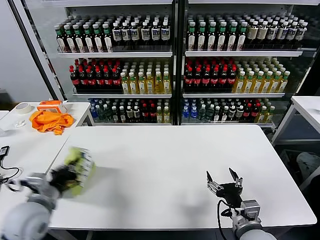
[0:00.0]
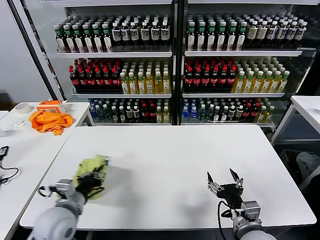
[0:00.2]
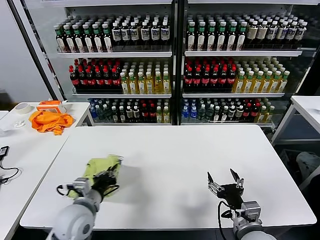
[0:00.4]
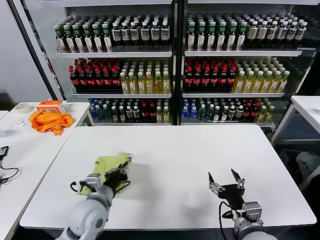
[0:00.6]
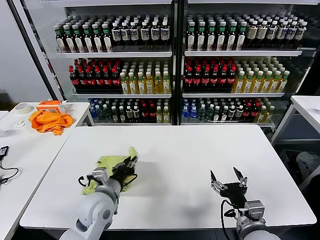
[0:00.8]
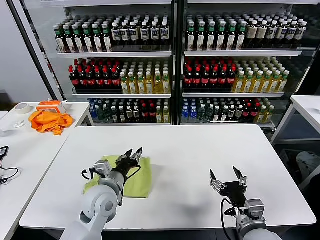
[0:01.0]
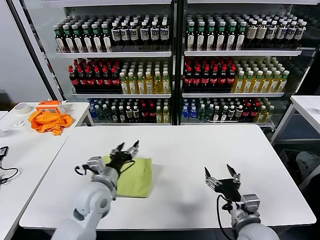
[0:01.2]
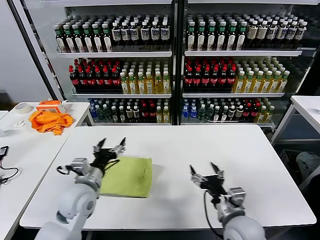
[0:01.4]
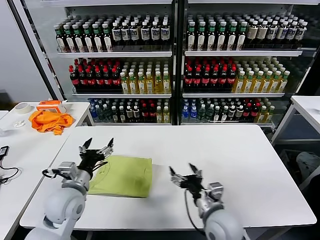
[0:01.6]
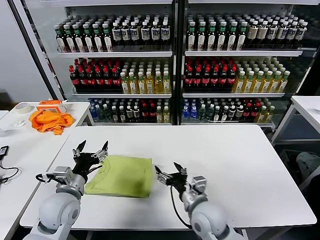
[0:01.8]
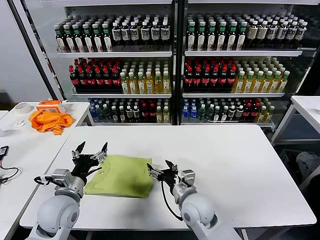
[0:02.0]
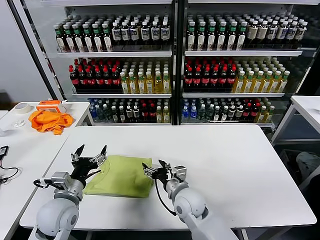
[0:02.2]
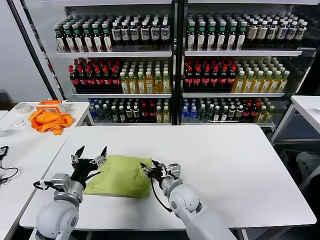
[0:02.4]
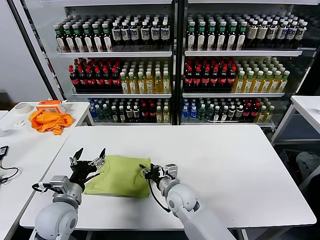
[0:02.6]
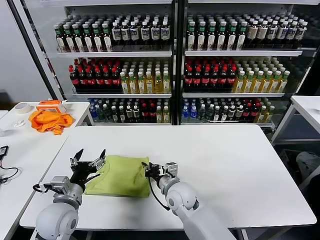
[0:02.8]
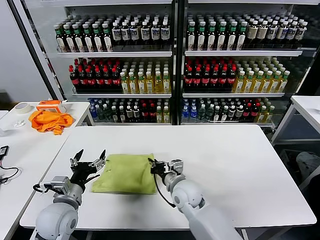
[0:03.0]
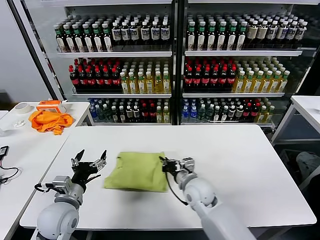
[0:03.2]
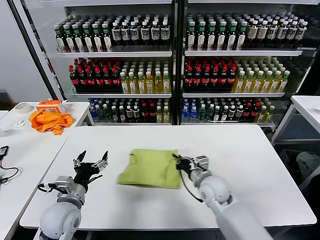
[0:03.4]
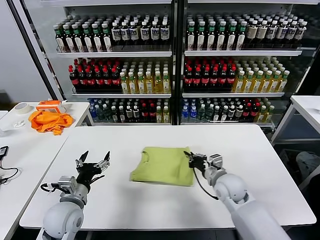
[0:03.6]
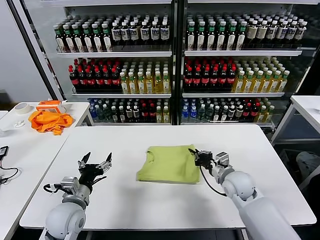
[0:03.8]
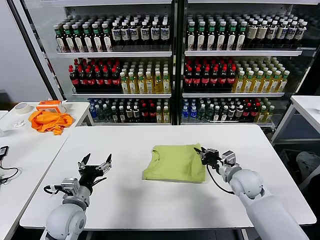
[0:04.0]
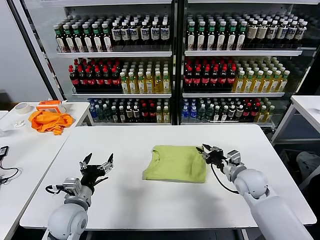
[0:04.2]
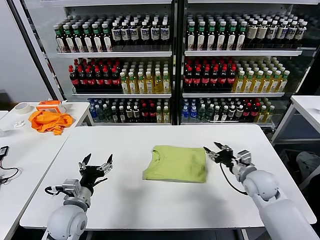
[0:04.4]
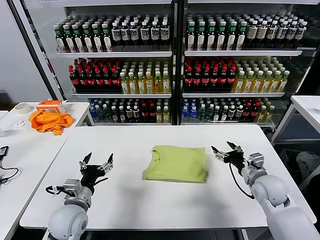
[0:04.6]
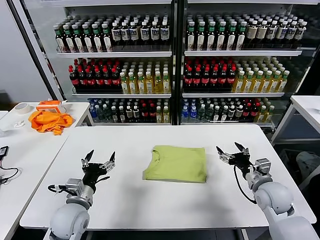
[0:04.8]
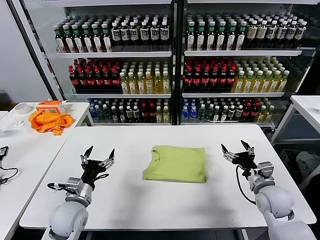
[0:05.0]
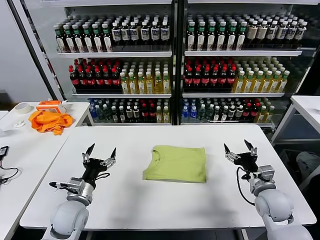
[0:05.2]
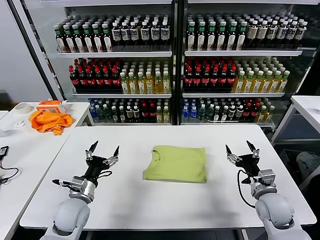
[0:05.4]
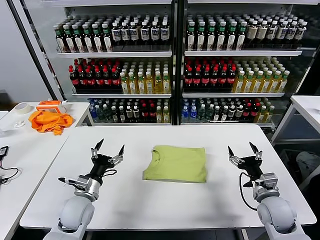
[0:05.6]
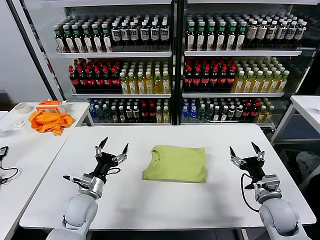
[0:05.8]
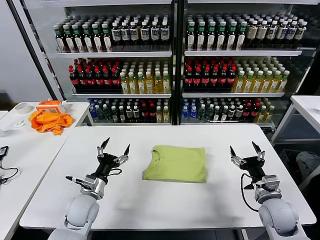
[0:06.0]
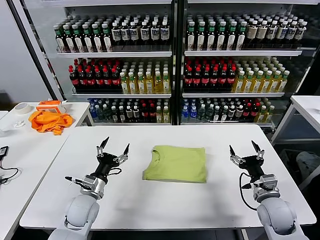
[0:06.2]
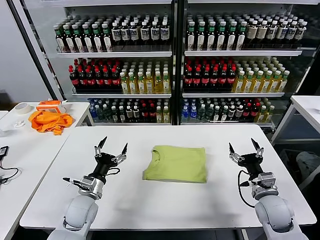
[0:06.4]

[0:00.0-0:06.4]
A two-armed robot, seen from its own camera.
Task of the whole recording: fold and organize the clothes.
Step, 0:01.2 to 0:04.2: Drag the clothes to the center of the table.
0:00.0 to 0:01.6: The right gripper travels to the left and forward by approximately 10 cm; the left gripper is displaced to the right and forward by approximately 10 cm, and opens.
0:01.6 to 0:03.2: The right gripper travels forward and to the left by about 15 cm, and closes up.
0:03.2 to 0:04.8: The right gripper heads to the right, covering roughly 25 cm, and opens its fingers.
0:04.8 to 0:06.4: The left gripper shifts by some 5 cm.

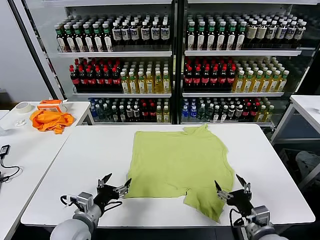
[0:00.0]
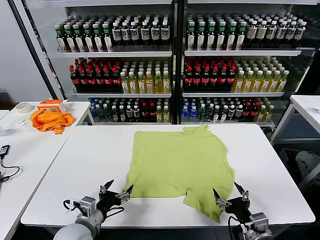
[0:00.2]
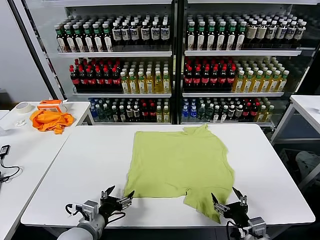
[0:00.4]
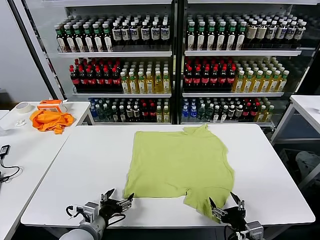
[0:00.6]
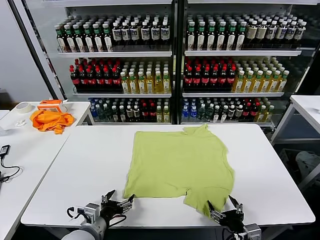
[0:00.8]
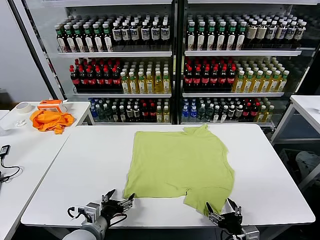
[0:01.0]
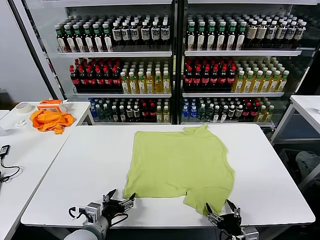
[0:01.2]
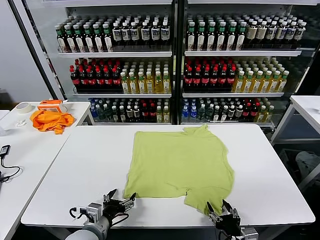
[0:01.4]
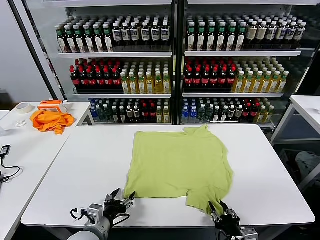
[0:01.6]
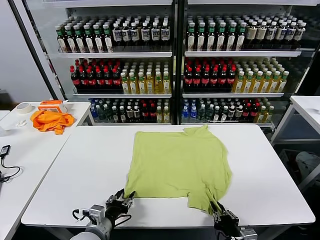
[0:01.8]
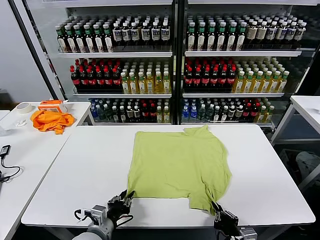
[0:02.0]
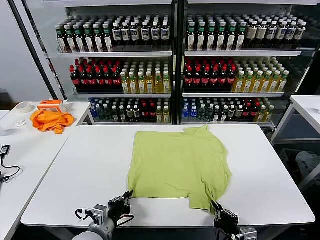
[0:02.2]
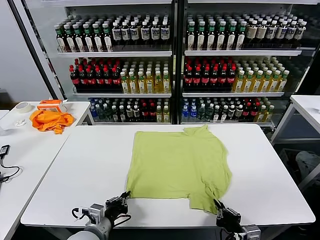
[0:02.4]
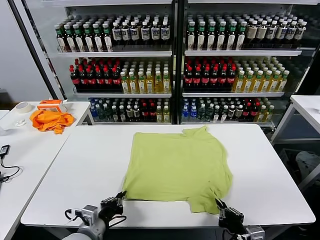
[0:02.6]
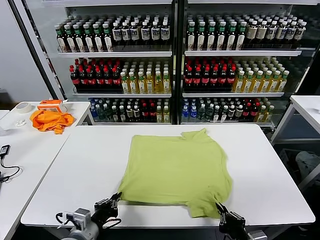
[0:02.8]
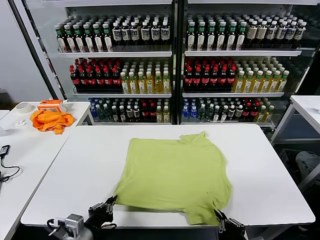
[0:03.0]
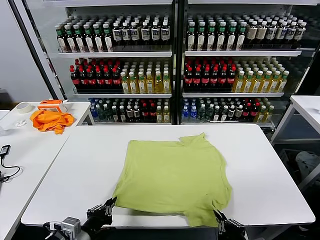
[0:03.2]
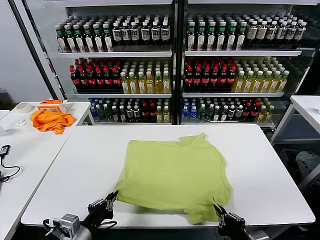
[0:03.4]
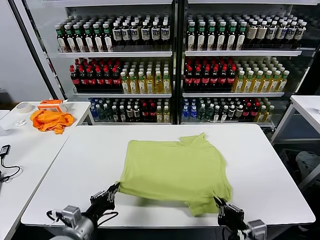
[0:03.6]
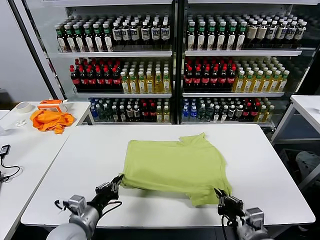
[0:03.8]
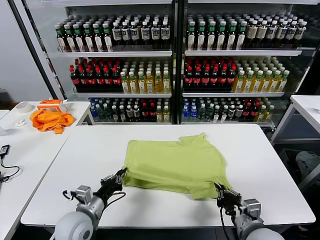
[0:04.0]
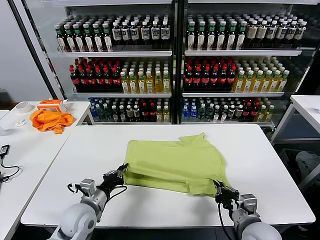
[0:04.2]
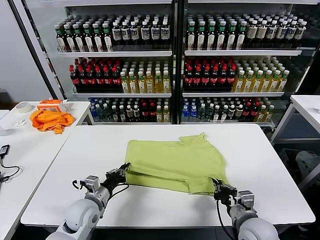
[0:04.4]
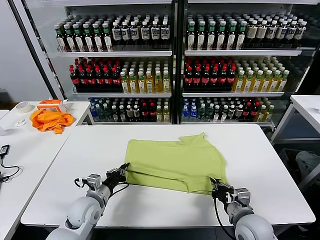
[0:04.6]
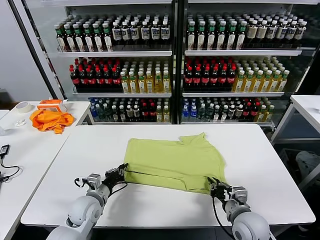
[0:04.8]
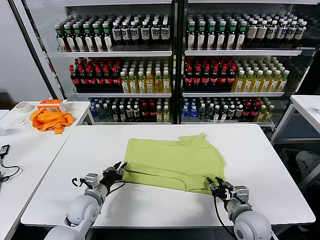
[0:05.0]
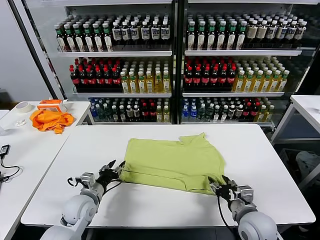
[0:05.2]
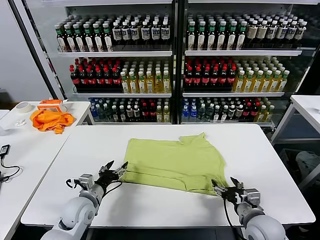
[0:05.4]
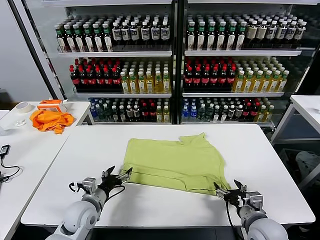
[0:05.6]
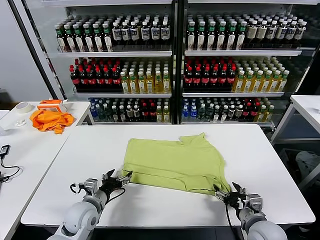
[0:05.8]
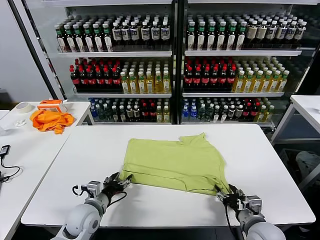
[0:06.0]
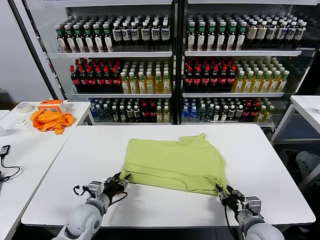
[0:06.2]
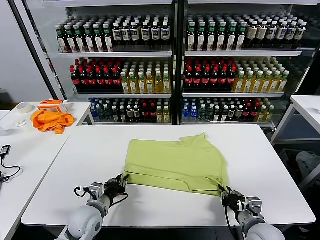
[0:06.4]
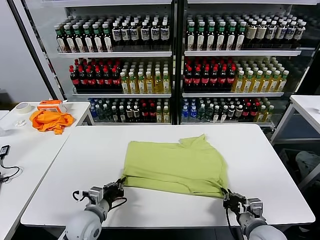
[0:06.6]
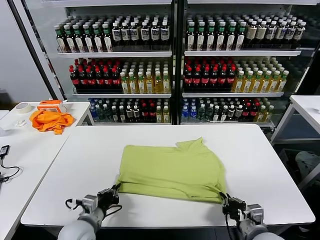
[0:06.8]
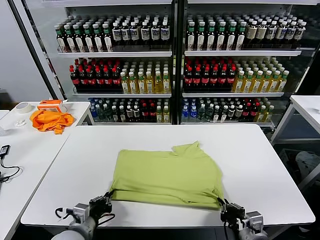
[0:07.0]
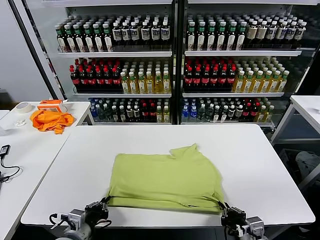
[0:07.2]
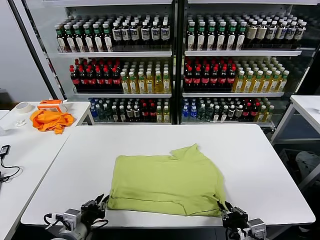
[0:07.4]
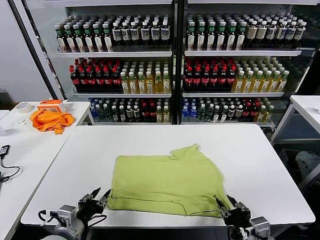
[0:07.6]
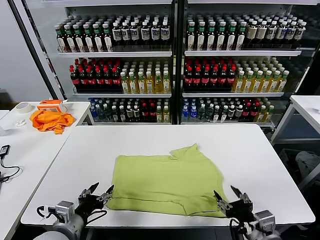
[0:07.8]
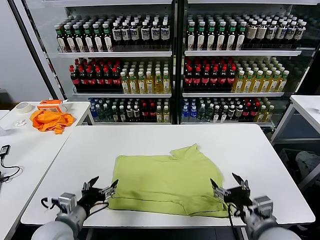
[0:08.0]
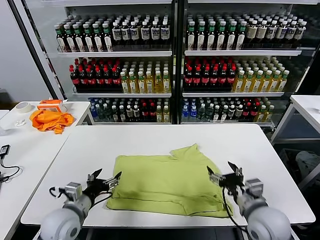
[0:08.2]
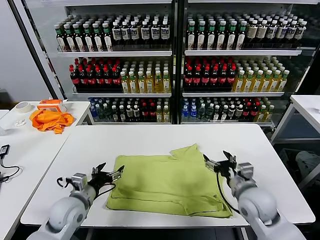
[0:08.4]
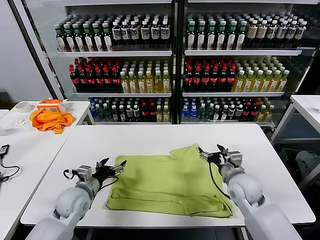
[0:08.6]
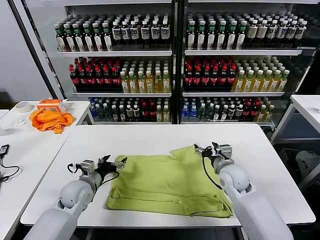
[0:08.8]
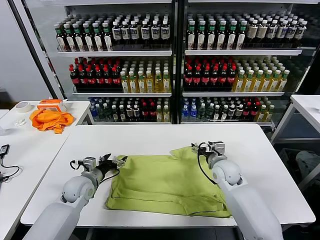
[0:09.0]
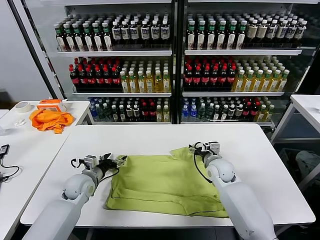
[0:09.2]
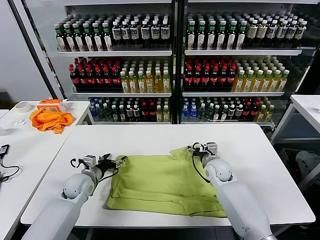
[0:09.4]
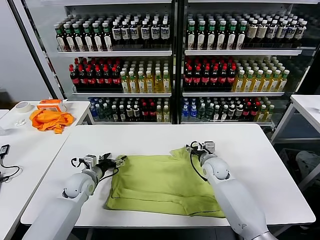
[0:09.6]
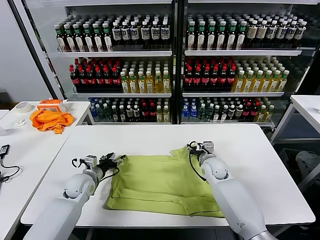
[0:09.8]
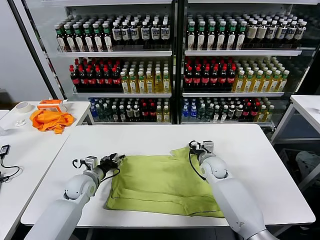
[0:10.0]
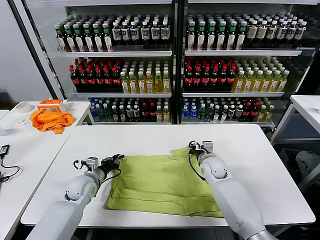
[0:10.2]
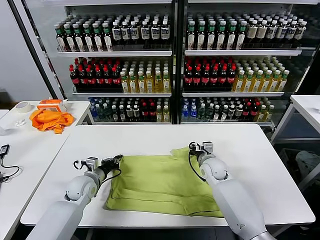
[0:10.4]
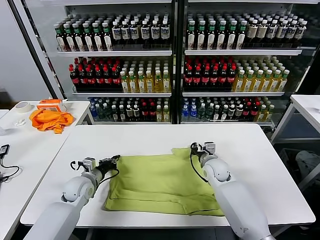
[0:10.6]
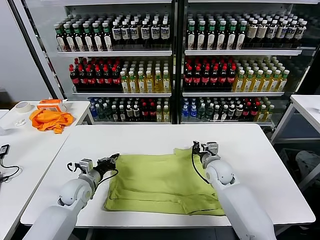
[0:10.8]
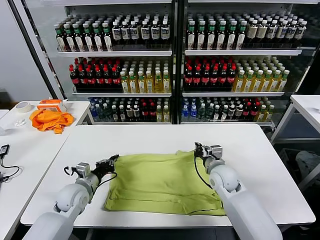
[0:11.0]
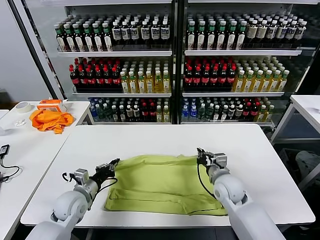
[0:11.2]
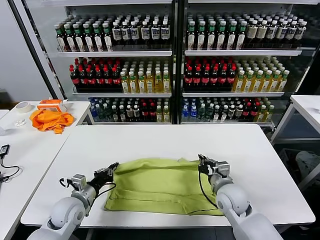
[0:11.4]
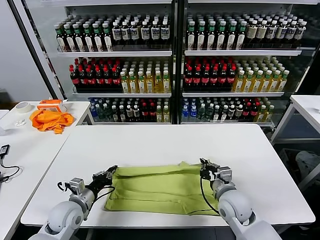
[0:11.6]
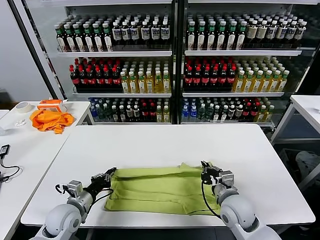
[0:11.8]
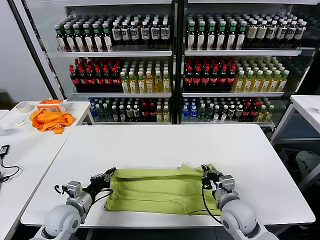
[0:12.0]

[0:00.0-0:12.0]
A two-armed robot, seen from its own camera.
Task of the whole recording: fold and organize the clothes.
Step, 0:00.0 to 0:02.4: use both grippers simultaneously to clamp the lower edge of the clothing fabric.
Step, 0:02.6 to 0:04.8: use both grippers to drag the lower edge of the fabric forward and fold it over the upper edge.
Step, 0:05.2 to 0:07.4: Drag the clothes downward with both gripper.
Step, 0:07.8 to 0:10.4: use both grippers simultaneously to clamp the upper edge of the clothing fabric.
0:01.6 to 0:03.0: The right gripper moves upward, about 5 cm; the left gripper shifts approximately 10 cm upward and backward, and closes its fingers.
0:03.0 to 0:04.4: Both grippers move forward, approximately 15 cm.
0:04.4 to 0:06.0: The right gripper opens its fingers; the left gripper opens up.
0:06.0 to 0:07.6: Both grippers travel together backward and upward, some 10 cm. The right gripper closes, then opens again; the left gripper closes, then reopens.
0:07.6 to 0:09.0: The grippers both shift forward by some 25 cm. The left gripper opens.
0:09.0 to 0:10.4: The left gripper closes its fingers; the right gripper closes up.
0:10.4 to 0:12.0: The left gripper travels backward by approximately 10 cm; the right gripper moves backward, approximately 20 cm.

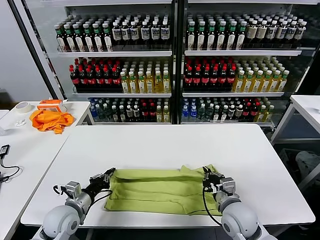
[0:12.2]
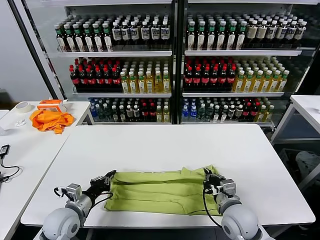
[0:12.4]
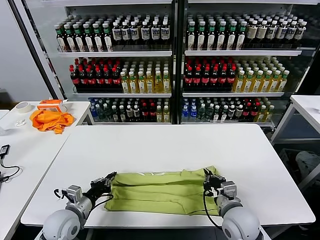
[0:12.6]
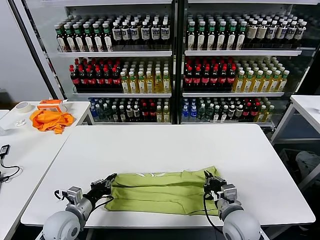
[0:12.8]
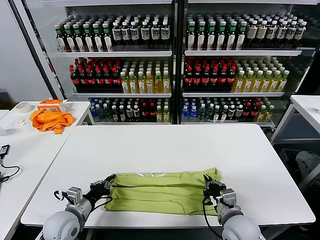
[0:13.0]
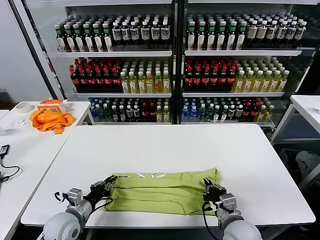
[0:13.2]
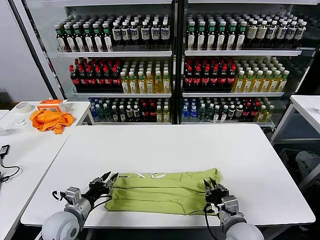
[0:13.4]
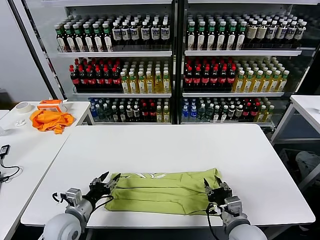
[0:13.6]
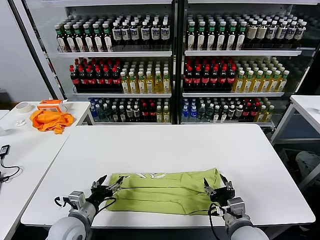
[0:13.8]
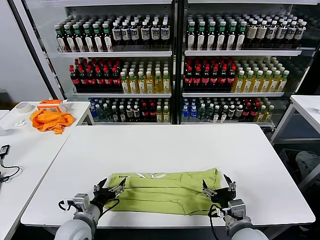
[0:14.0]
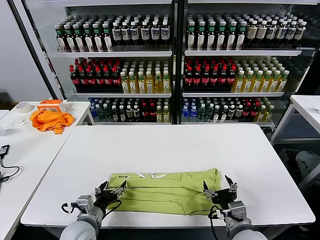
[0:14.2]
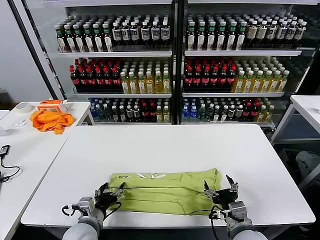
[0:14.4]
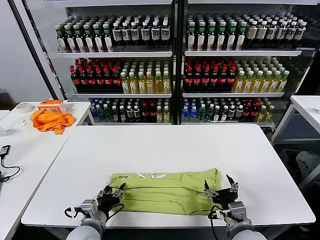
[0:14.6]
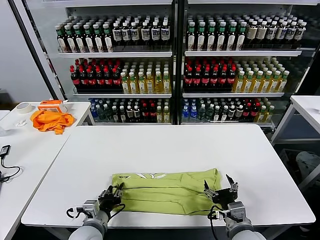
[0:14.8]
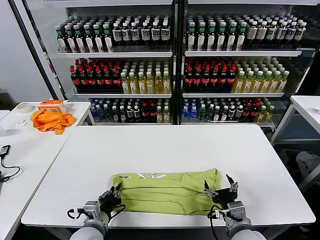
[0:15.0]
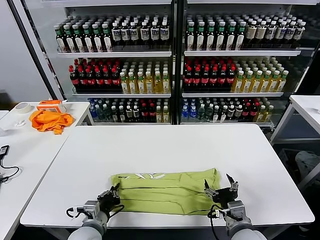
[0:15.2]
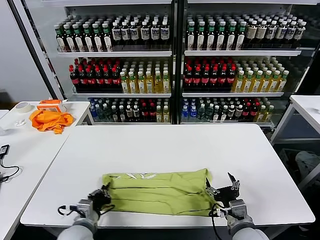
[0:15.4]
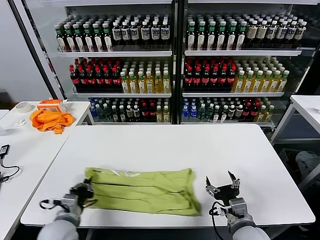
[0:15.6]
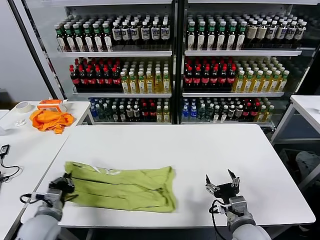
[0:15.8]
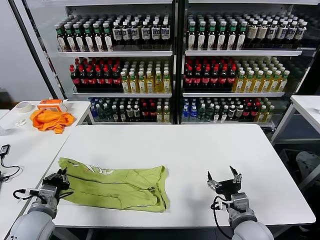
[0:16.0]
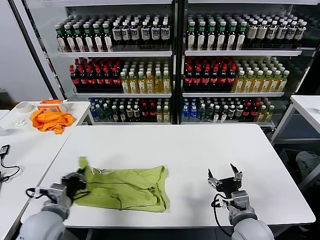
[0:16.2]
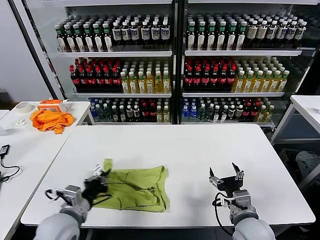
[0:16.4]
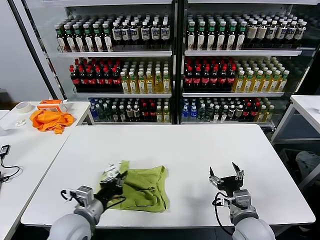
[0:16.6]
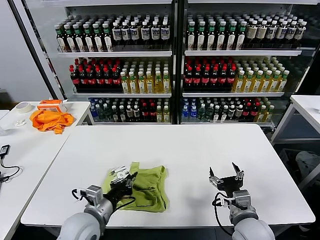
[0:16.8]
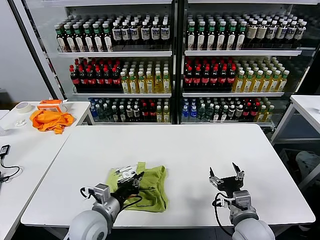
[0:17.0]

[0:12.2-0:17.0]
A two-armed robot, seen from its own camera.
Task of the whole recording: fold and organize the clothes.
Step, 0:13.6 to 0:15.0: use the left gripper to clamp the left edge of the fabric.
0:12.2 to 0:13.8: The right gripper goes some 5 cm backward, and opens its fingers, while the left gripper ends up roughly 5 cm from where it was, and opens.
0:13.8 to 0:15.4: The left gripper closes its fingers.
0:15.4 to 0:17.0: The left gripper heads to the right and upward, covering roughly 10 cm.
